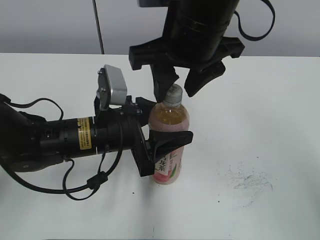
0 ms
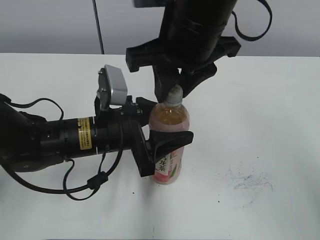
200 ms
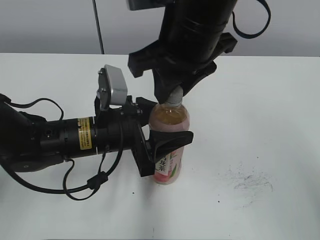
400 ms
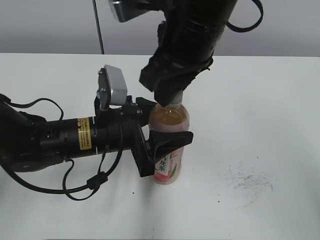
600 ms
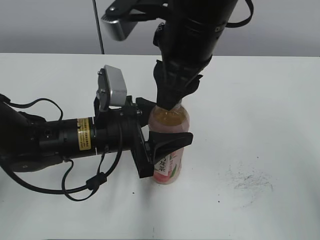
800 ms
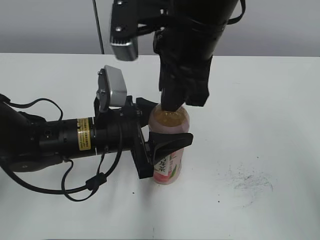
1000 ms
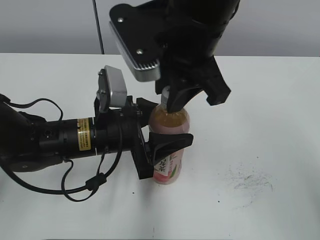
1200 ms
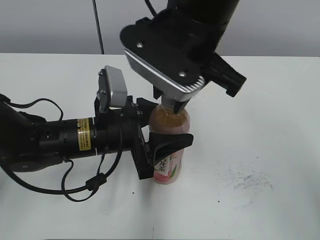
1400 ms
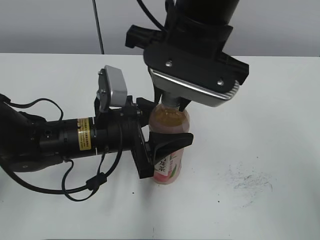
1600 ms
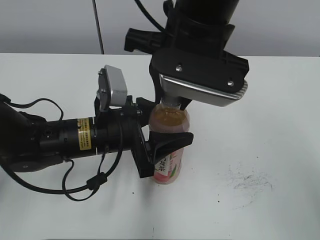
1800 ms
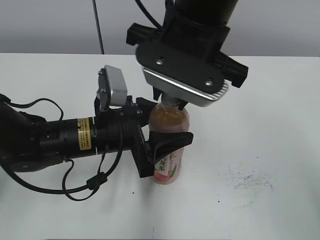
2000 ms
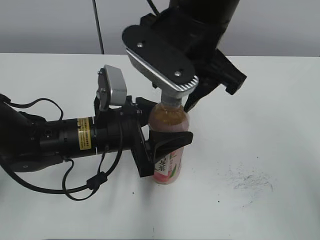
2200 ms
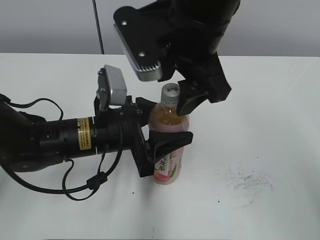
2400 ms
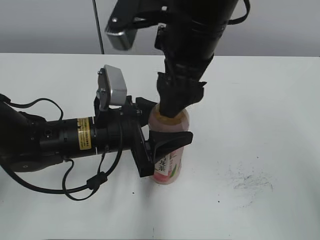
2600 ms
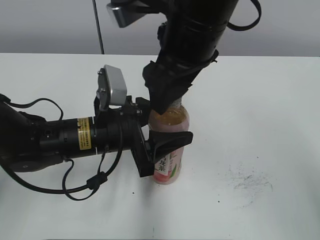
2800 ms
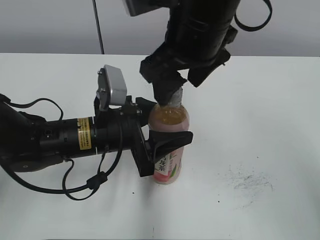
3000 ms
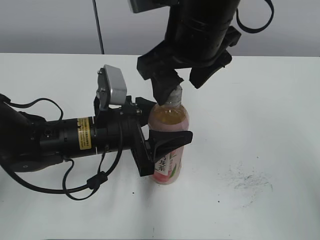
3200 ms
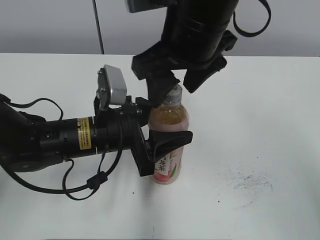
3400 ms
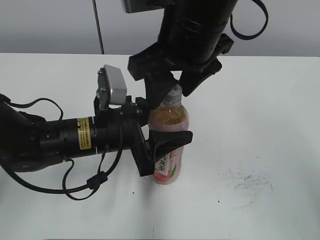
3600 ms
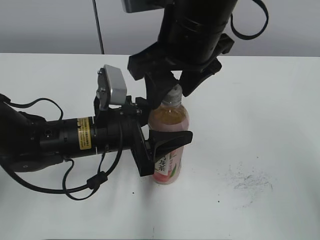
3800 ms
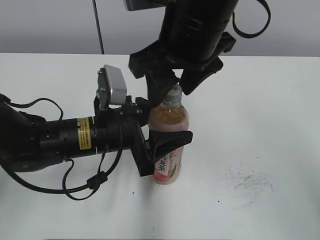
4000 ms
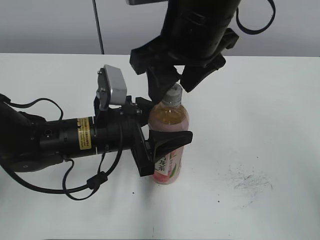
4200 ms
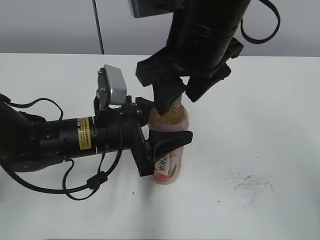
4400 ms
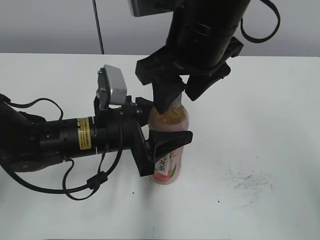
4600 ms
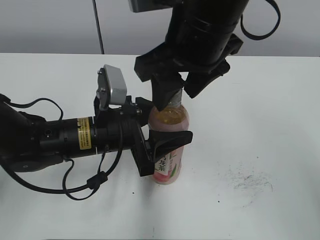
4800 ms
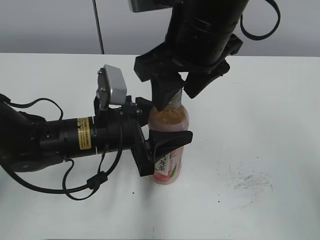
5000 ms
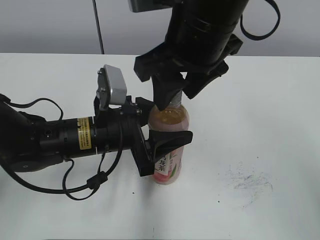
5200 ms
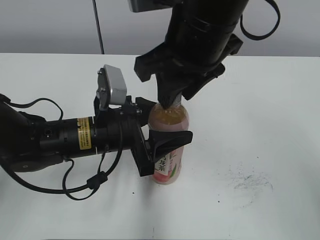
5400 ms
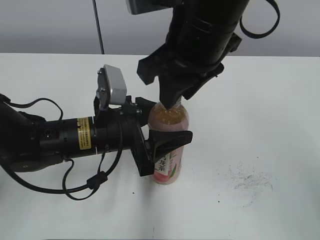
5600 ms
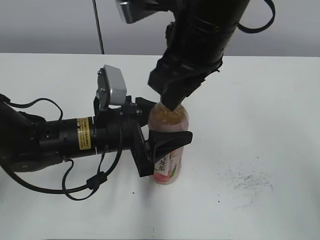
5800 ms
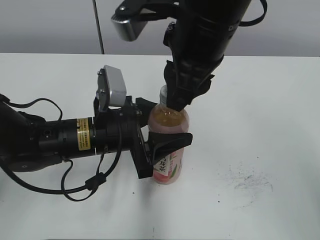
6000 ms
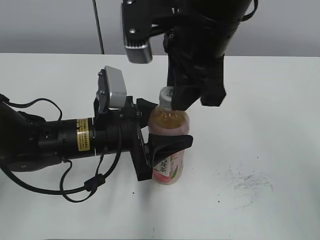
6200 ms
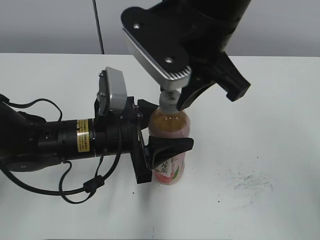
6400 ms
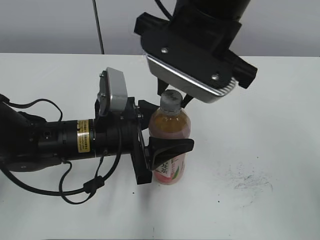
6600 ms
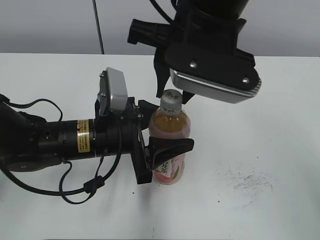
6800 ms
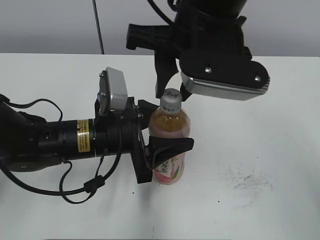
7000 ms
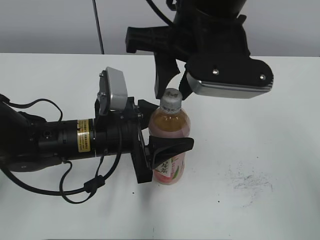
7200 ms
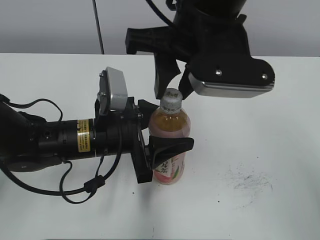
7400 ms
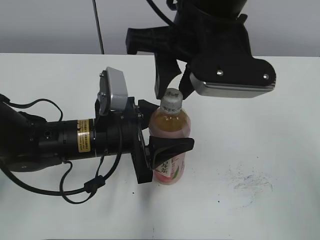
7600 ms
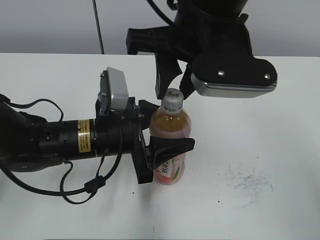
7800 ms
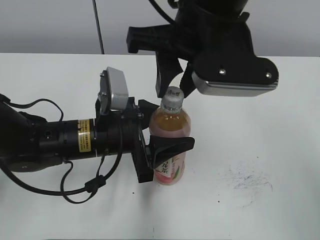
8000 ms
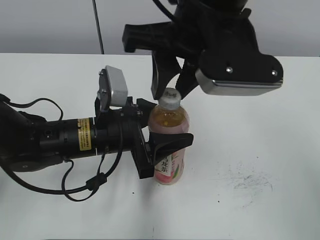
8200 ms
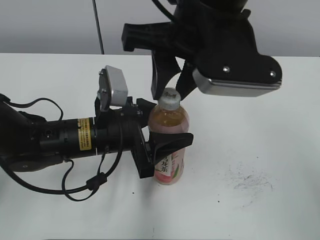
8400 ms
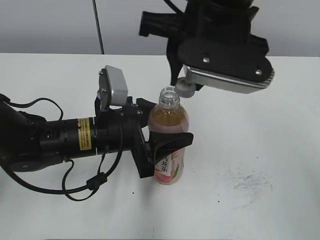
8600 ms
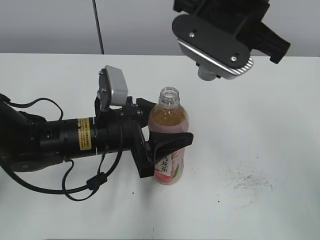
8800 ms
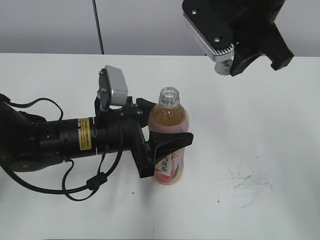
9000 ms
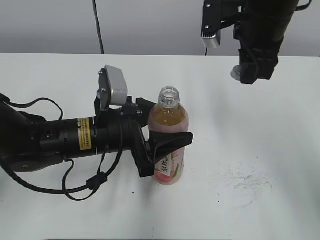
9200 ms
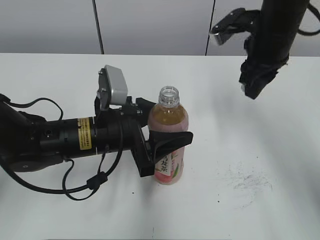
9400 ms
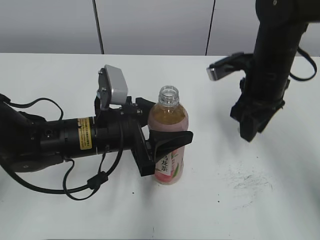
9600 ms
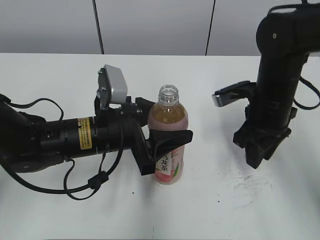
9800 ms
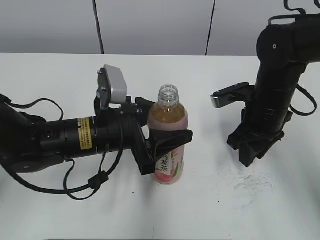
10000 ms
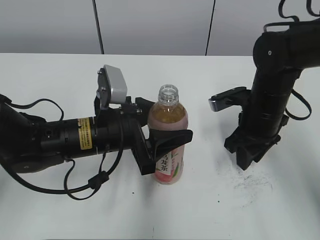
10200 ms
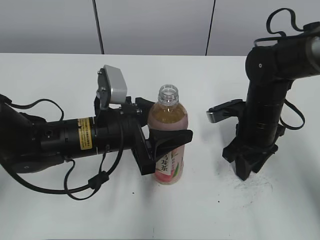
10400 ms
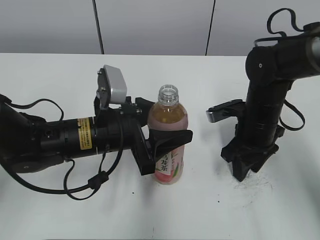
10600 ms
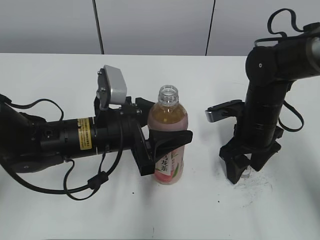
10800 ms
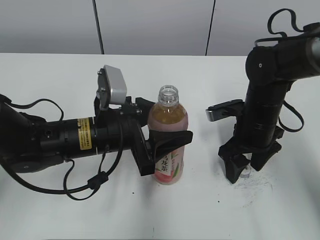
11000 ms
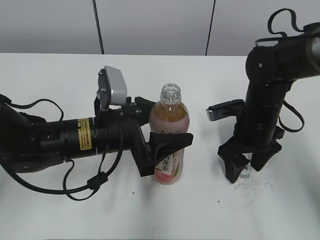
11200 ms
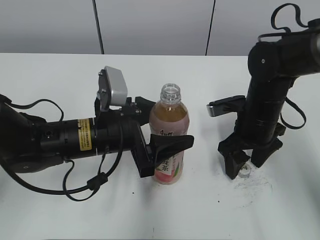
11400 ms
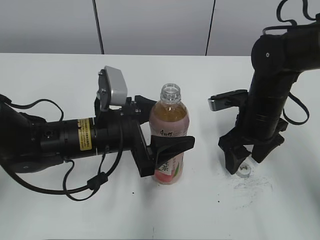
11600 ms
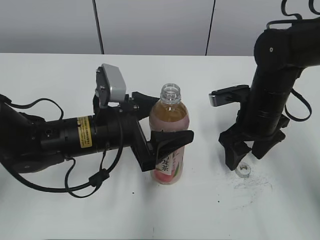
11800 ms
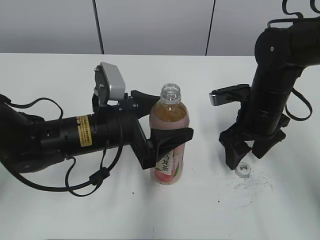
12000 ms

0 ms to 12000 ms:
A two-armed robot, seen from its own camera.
Step, 8000 ms to 10800 ms: Place the bottle cap on the right.
0 ms to 1600 ms: The right gripper closes its fingers.
1600 ms to 3000 ms: The right gripper opens up.
3000 ms to 4400 ms: The grippers move only a little.
4400 ms to 6000 ms: The right gripper closes its fingers.
7600 ms to 9000 ms: The right gripper goes about 5 cm to the right.
9000 ms to 10400 ms: The right gripper heads downward, covering roughly 20 cm.
10400 ms to 12000 ms: The right gripper opens up; the left gripper opens.

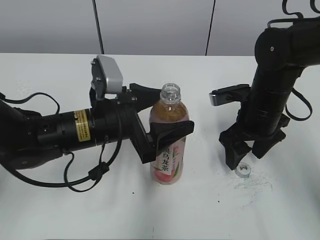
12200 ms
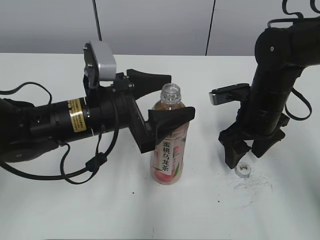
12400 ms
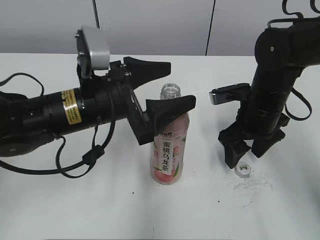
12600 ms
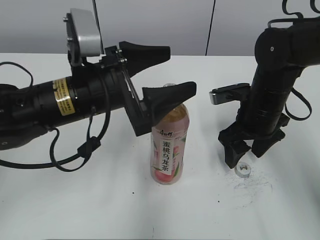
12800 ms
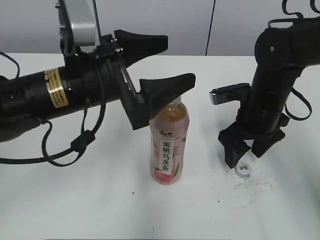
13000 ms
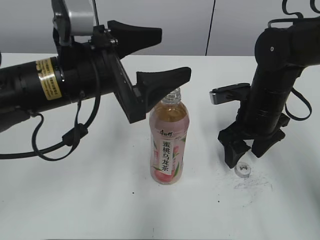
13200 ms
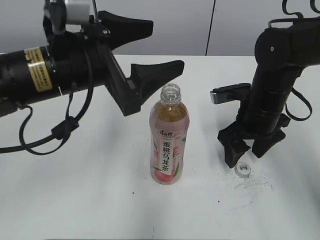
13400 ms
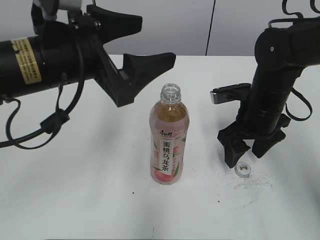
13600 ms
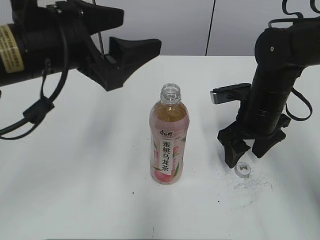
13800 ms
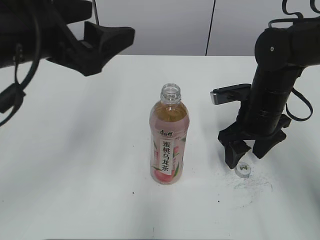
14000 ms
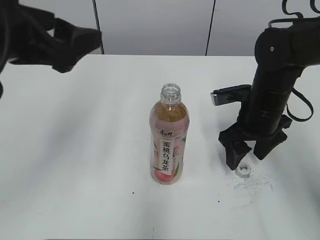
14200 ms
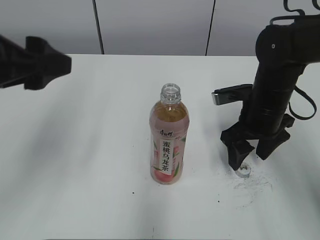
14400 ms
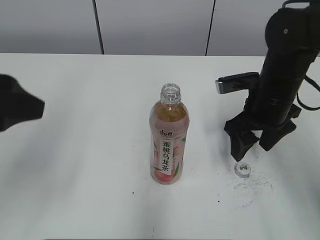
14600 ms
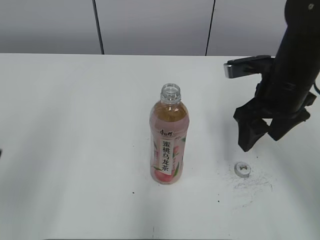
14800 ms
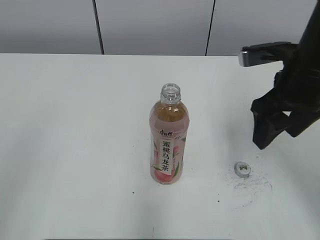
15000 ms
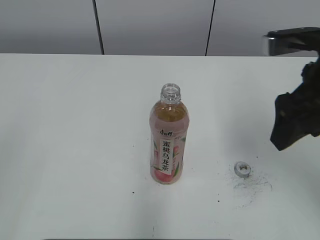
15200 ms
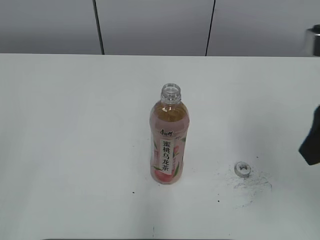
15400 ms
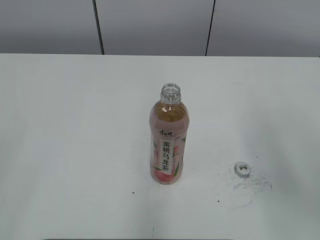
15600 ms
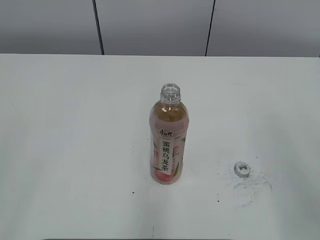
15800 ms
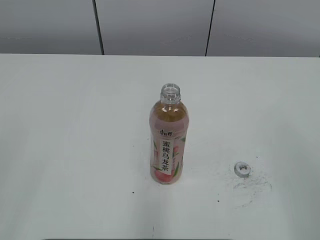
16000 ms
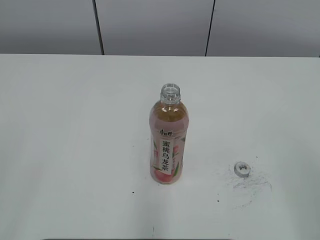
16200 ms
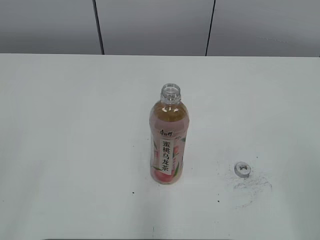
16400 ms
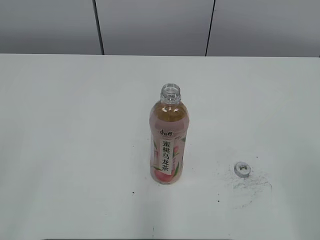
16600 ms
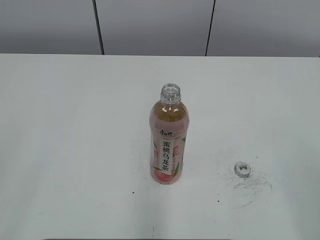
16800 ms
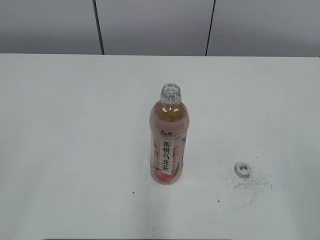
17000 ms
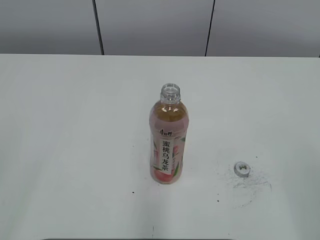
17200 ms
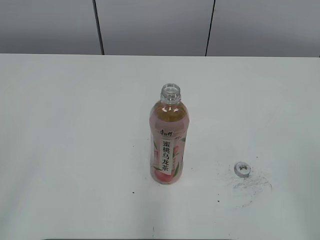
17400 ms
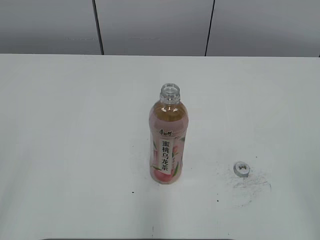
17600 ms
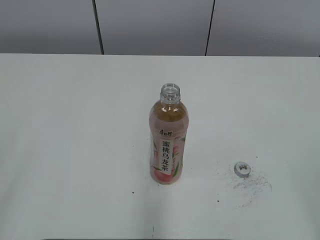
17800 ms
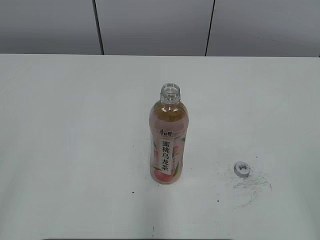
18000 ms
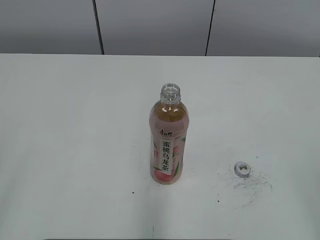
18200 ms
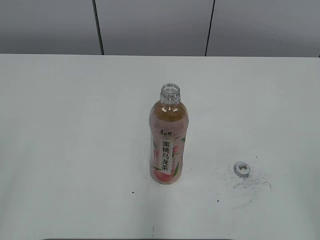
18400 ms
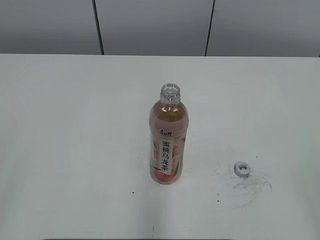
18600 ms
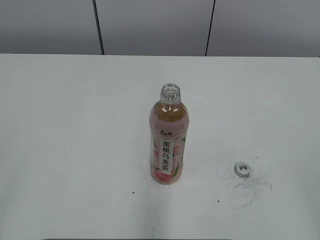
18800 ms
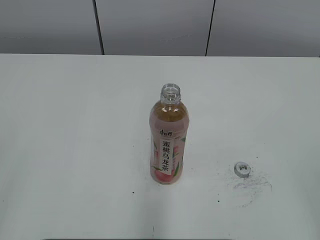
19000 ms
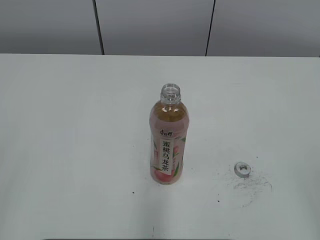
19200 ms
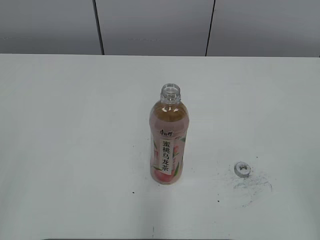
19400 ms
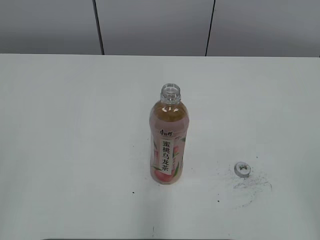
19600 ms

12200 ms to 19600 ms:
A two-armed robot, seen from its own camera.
12200 ms to 13600 ms: The left gripper shifts some 10 cm upward.
13600 ms to 15200 ms: The left gripper shifts some 30 cm backward and to the left, while the right gripper moves upward and backward, approximately 15 cm.
15200 ms to 16600 ms: The right gripper is displaced backward by approximately 25 cm.
